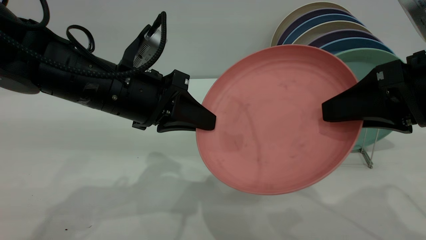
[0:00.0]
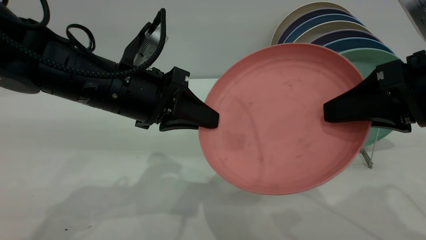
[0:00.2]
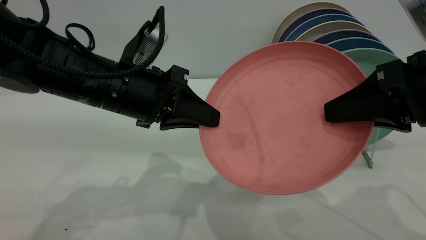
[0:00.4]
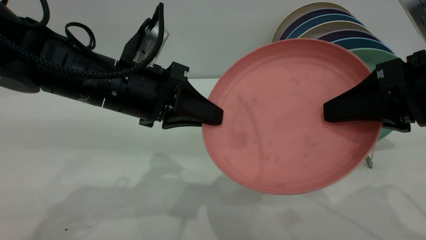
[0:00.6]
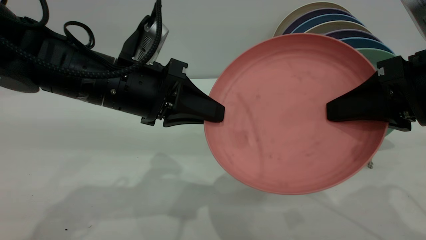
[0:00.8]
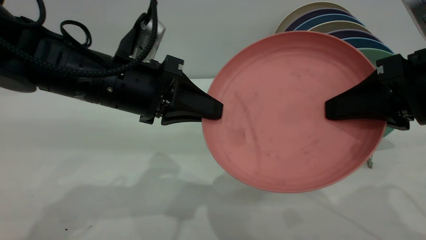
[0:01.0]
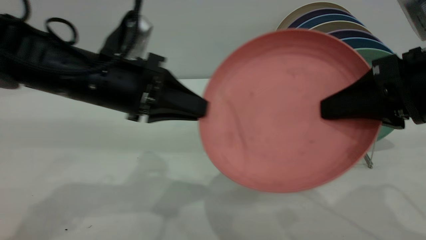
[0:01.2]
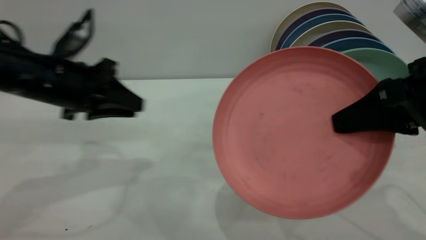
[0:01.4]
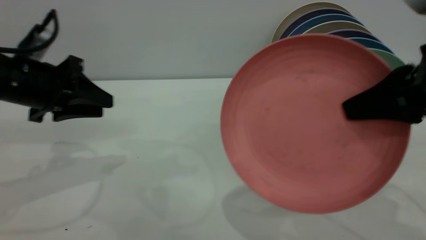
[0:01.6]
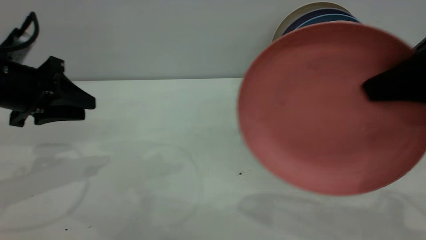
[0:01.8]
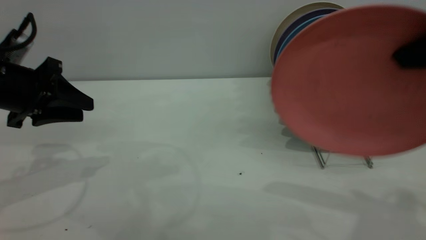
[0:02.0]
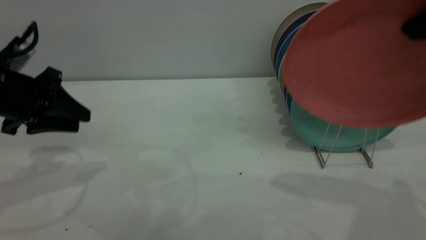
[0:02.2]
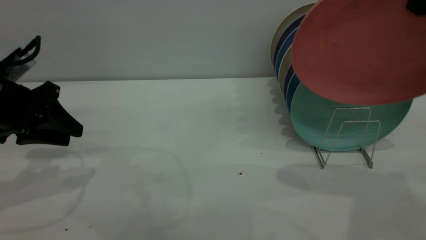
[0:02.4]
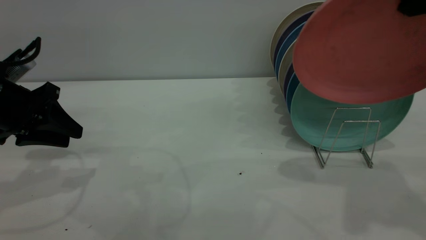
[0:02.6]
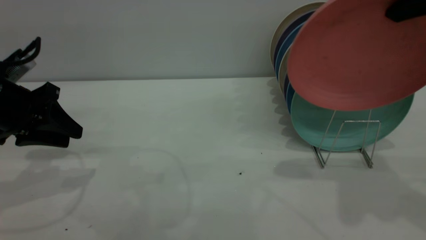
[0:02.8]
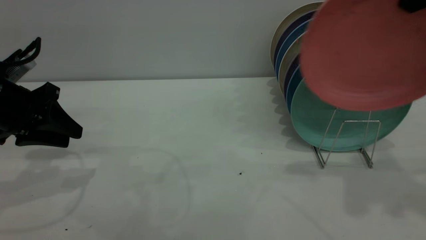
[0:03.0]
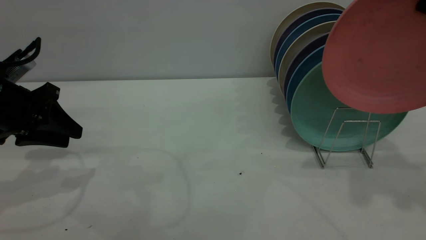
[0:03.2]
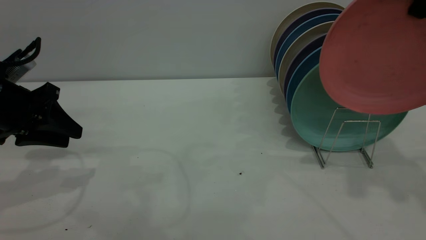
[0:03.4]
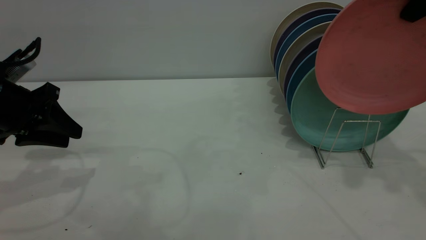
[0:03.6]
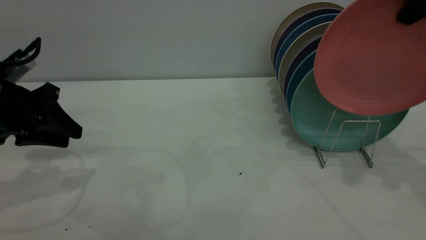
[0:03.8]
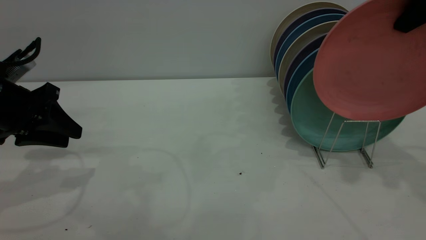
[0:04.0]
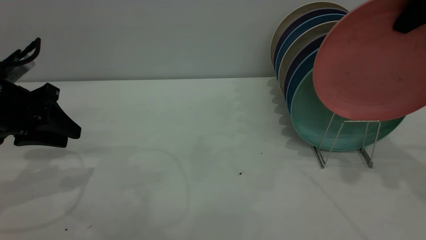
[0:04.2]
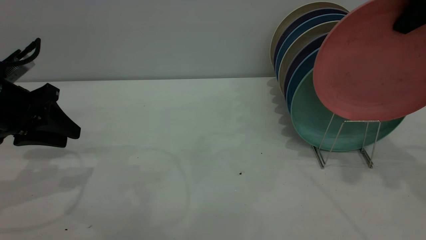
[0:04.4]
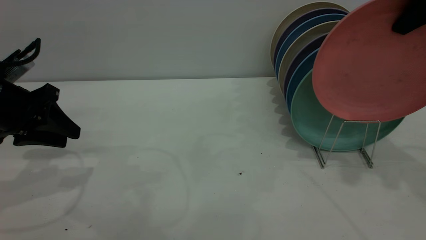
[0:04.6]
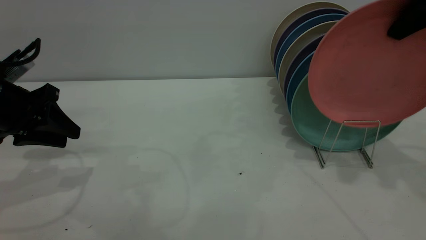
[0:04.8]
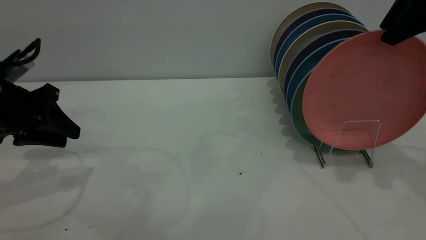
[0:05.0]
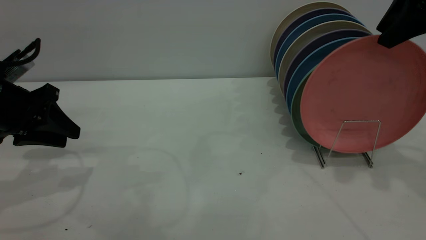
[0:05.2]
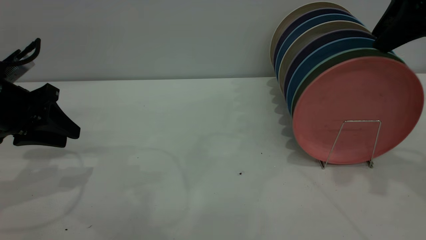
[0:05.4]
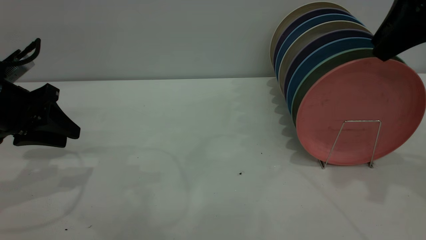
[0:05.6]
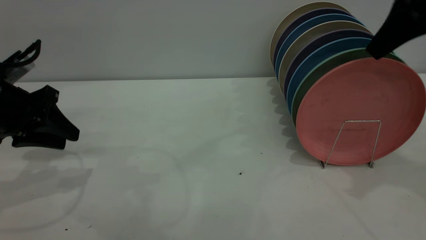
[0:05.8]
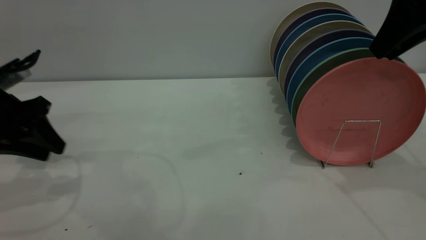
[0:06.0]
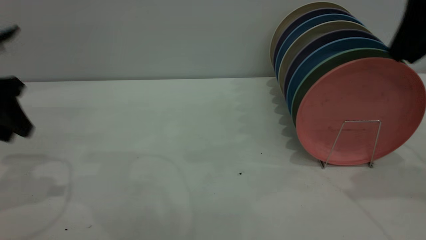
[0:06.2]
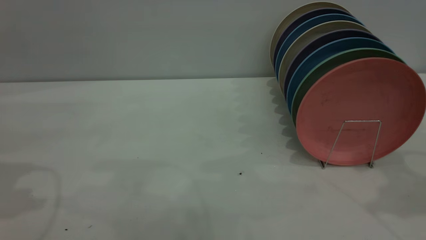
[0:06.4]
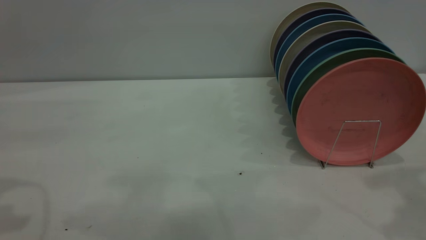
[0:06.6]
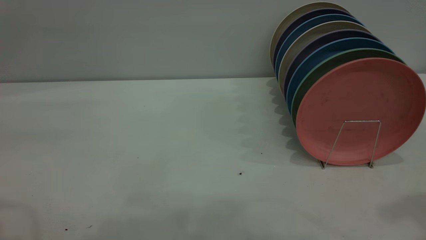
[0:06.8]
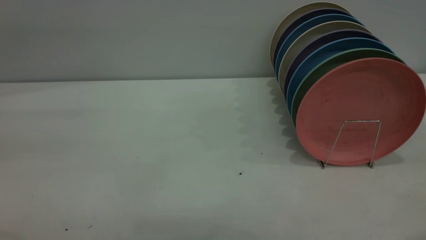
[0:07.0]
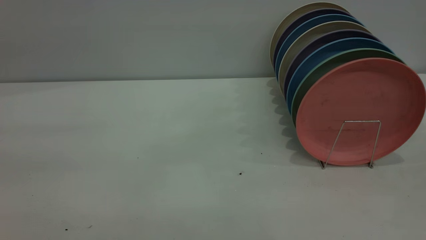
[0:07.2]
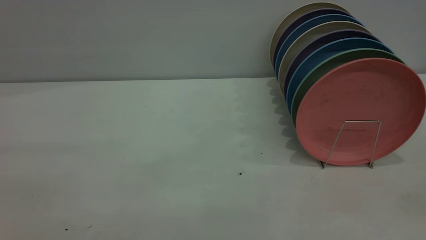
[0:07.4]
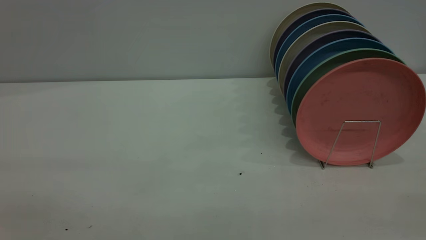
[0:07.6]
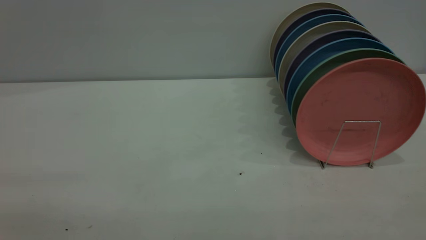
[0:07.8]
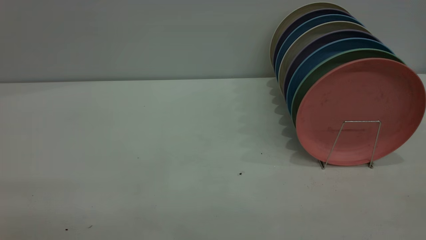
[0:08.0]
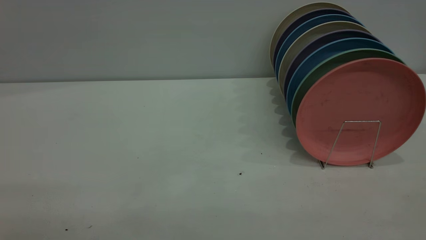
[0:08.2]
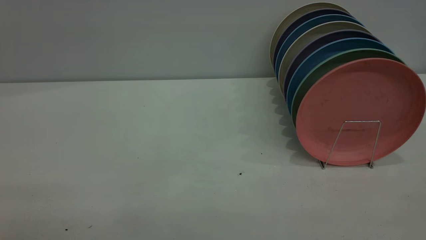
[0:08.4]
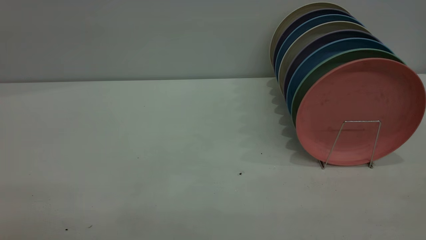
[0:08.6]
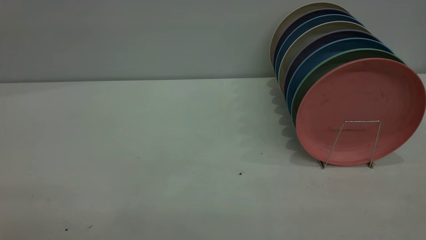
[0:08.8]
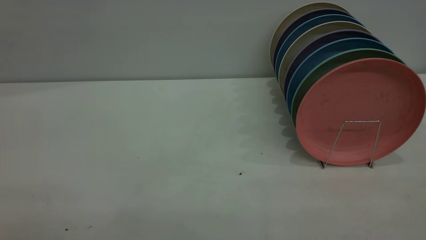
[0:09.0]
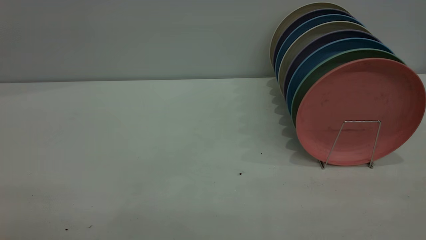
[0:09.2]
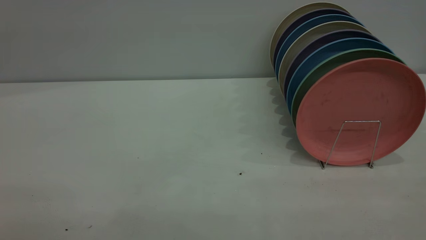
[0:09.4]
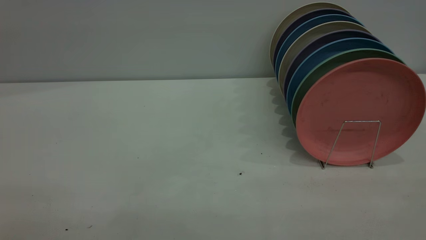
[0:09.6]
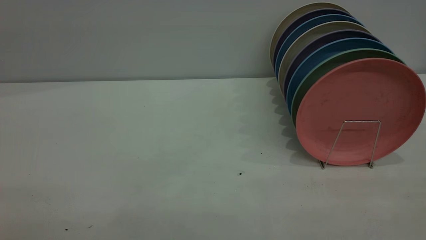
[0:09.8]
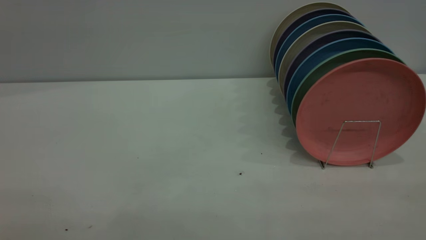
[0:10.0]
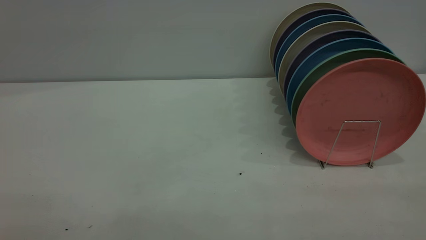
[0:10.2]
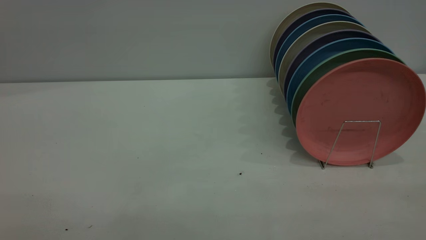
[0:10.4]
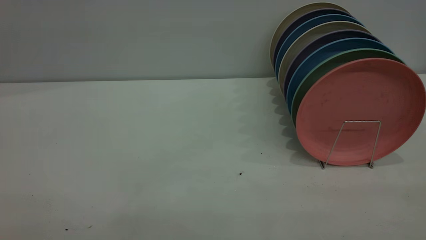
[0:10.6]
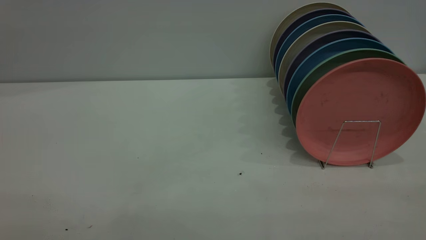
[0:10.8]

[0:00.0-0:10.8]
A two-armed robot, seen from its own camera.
Task of the whole recording: the left gripper grasp the pink plate, the left gripper pass the pink plate to the right gripper, and the right gripper place the pink plate on the plate rack.
Step, 0:01.4 to 0:06.2: Place the plate on the shelf.
0:00.0 to 0:01.6: The left gripper heads to the left, covering approximately 15 cm, and opens its fingers, while the right gripper closes.
0:01.6 to 0:03.0: The right gripper goes about 15 cm upward and forward.
0:03.0 to 0:04.6: The right gripper is displaced forward by some 5 cm.
0:04.6 to 0:06.2: The right gripper opens its fingers. Meanwhile the left gripper shifts about 10 cm upward.
0:06.2 to 0:07.8: The left gripper goes approximately 35 cm backward and upward. The right gripper travels backward by roughly 30 cm, and opens up.

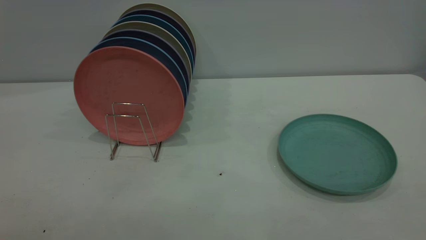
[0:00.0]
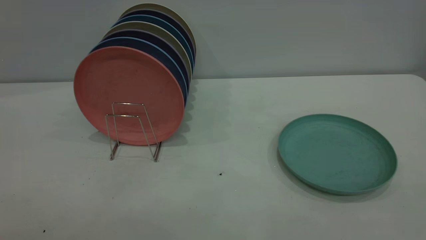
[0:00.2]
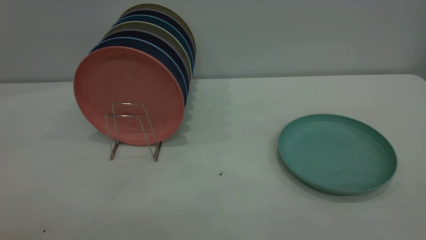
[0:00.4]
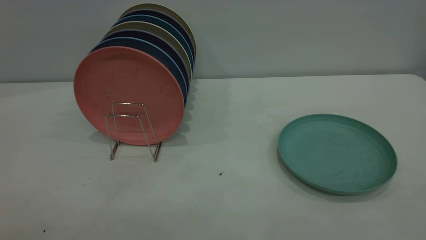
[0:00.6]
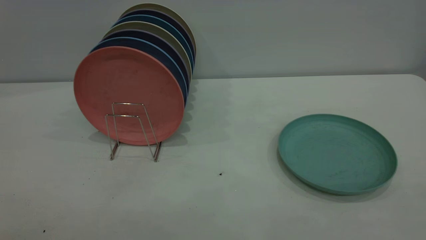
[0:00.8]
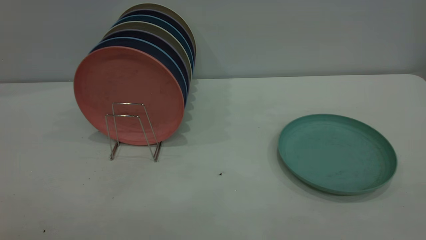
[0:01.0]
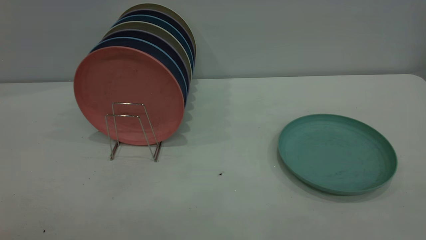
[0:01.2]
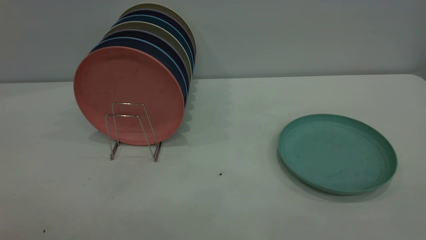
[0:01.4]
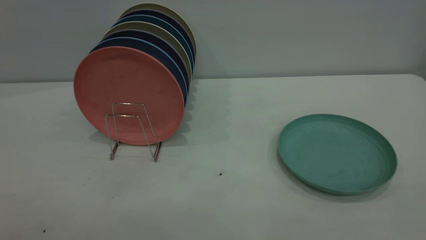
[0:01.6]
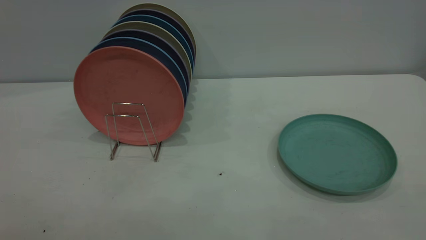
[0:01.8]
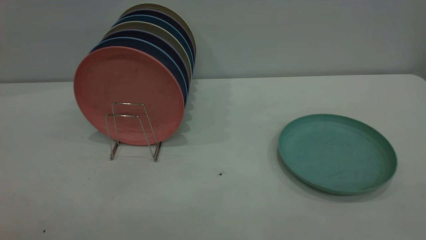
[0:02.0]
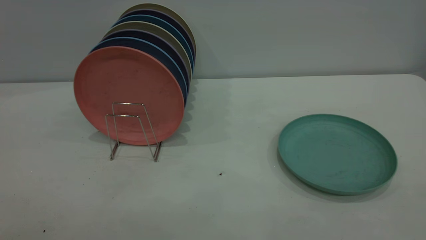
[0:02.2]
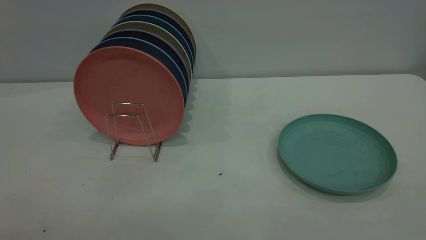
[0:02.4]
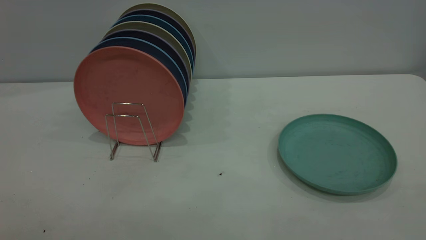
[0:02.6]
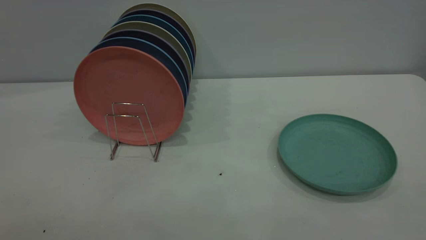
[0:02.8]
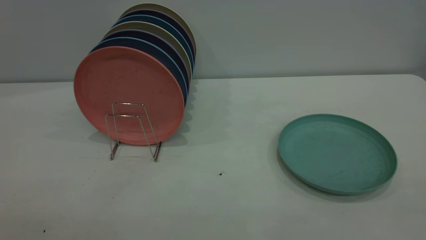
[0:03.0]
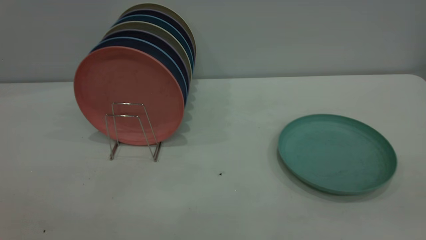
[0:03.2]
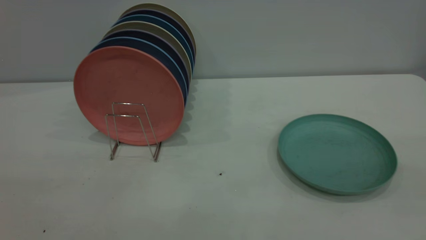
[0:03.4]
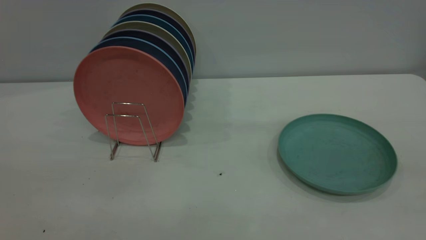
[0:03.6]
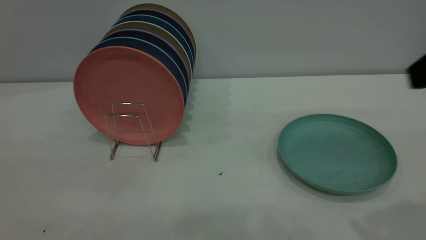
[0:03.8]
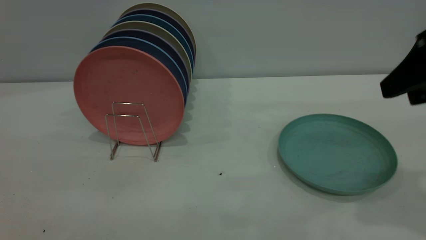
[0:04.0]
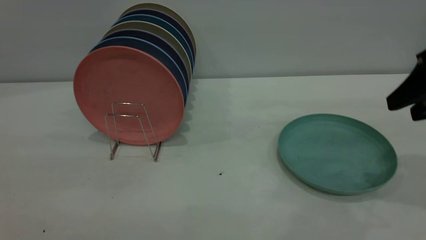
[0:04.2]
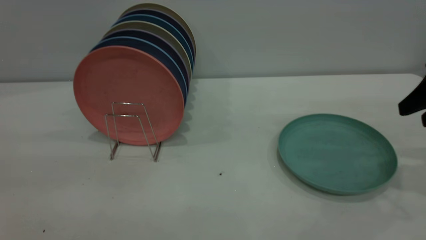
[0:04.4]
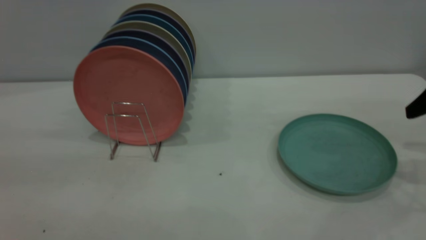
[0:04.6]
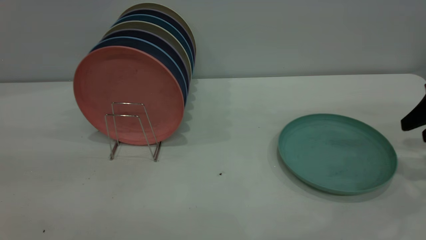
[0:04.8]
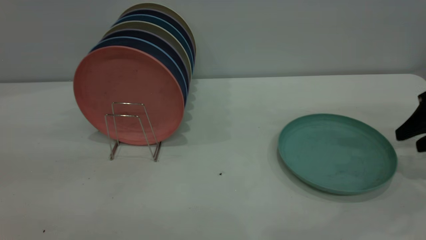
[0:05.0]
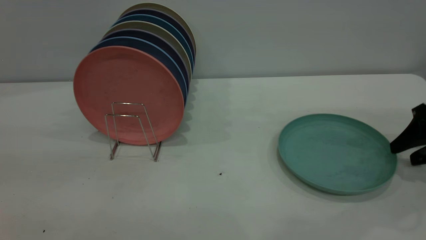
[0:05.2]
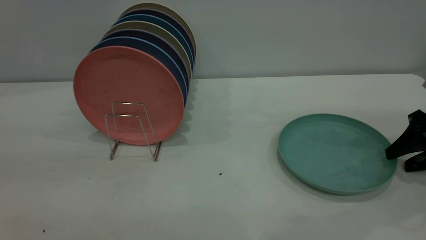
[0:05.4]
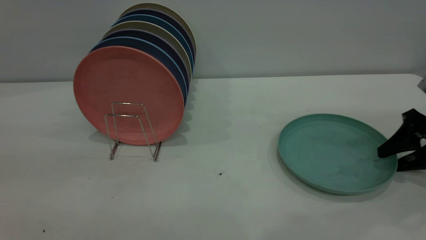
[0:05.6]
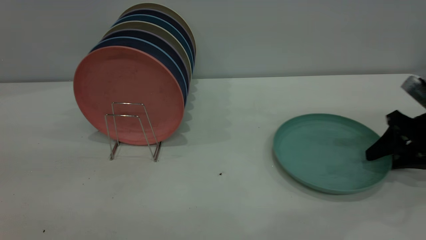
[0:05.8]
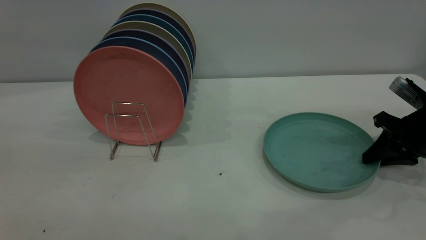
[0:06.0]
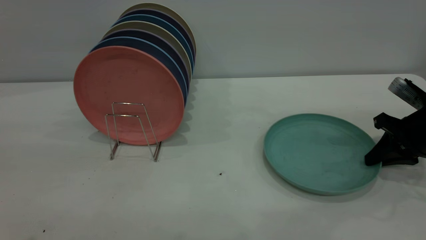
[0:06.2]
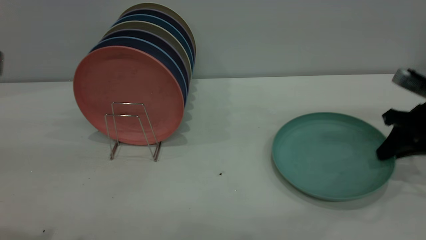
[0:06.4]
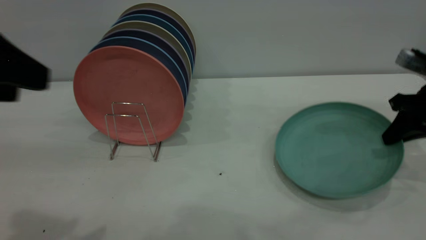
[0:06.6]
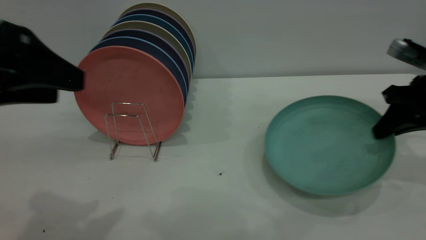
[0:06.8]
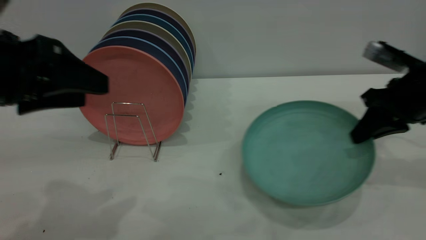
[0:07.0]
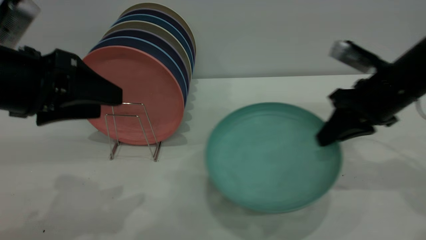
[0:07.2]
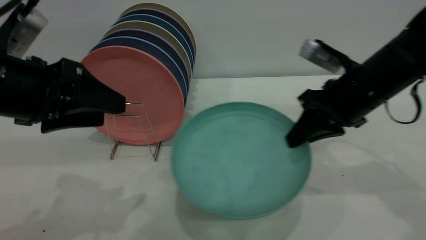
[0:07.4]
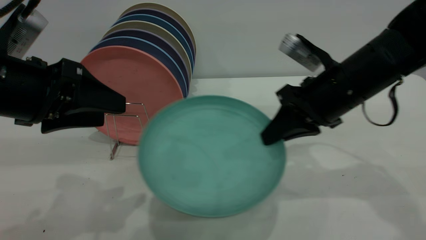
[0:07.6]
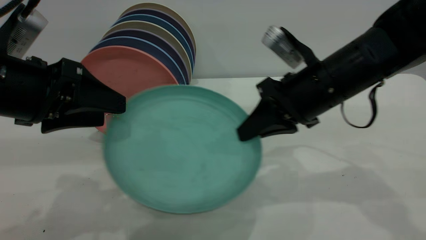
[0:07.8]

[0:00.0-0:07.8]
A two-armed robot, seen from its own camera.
Task of the whole recording: the right gripper grasp the green plate, the right gripper pass the green plate to the left gripper, and the left gripper place the green plate on the plate rack.
Step, 0:00.0 to 0:06.6: Pick up the plate with the right gripper.
0:00.0 to 0:01.6: The two grippers keep their place.
0:04.6 to 0:06.2: The right gripper moves downward, approximately 10 cm, and closes up.
0:06.2 to 0:07.8: The right gripper moves to the left and upward, roughly 25 cm. Meanwhile the left gripper shifts roughly 20 cm downward and forward.
